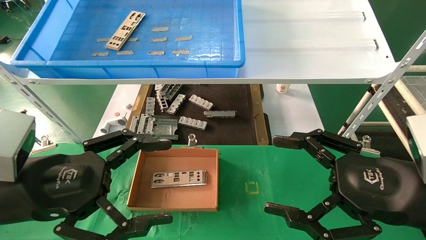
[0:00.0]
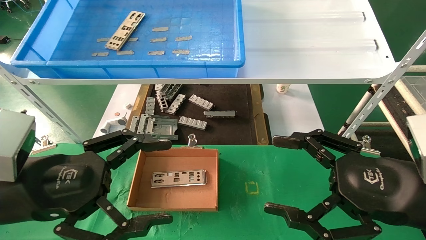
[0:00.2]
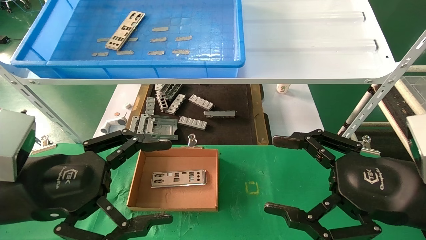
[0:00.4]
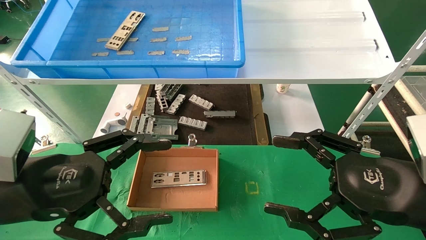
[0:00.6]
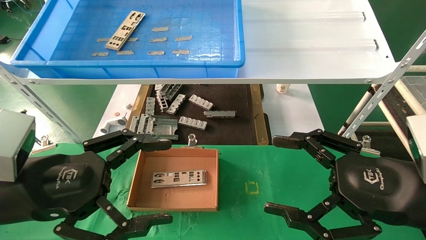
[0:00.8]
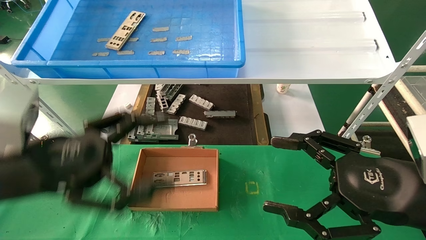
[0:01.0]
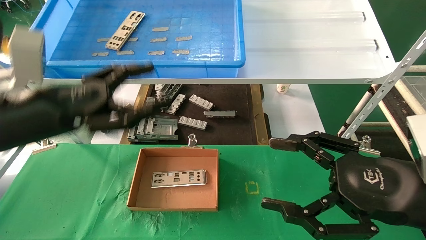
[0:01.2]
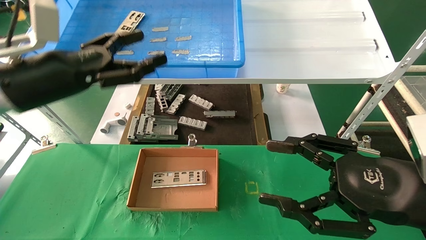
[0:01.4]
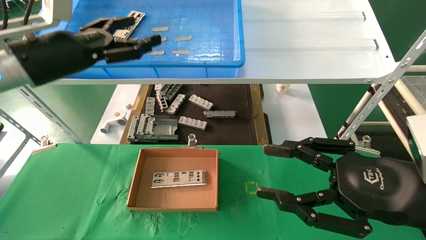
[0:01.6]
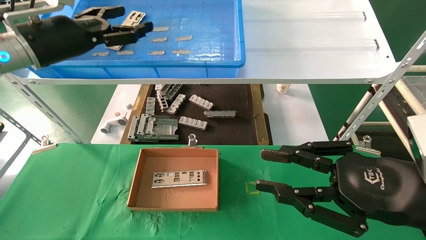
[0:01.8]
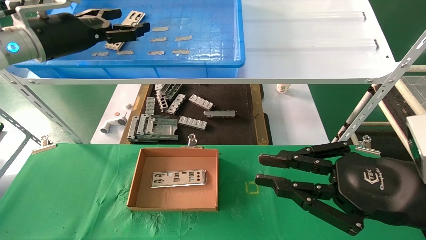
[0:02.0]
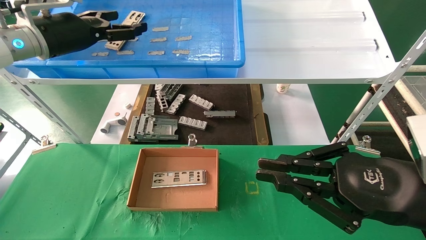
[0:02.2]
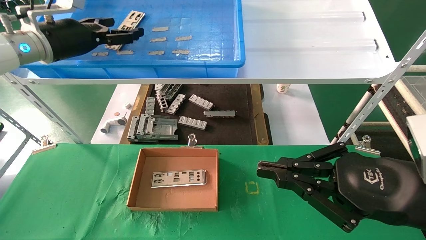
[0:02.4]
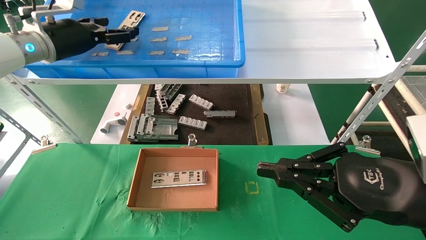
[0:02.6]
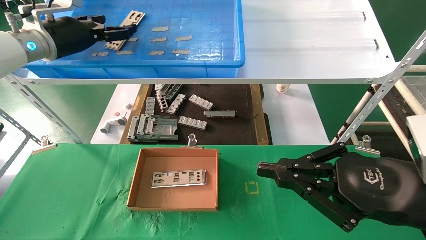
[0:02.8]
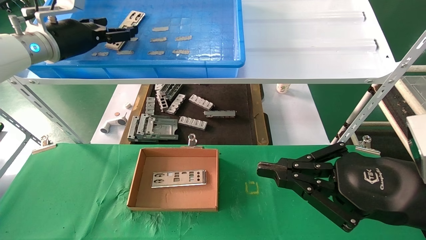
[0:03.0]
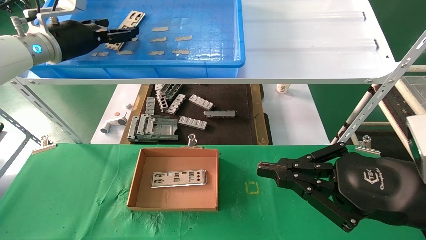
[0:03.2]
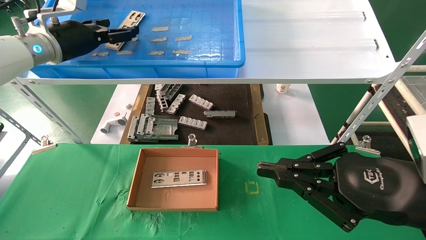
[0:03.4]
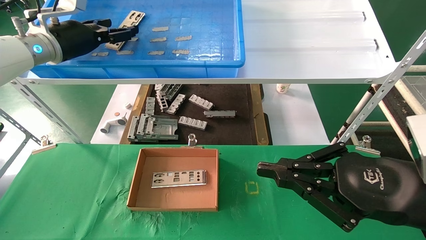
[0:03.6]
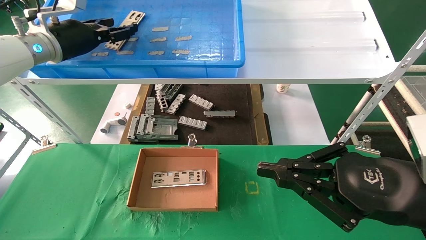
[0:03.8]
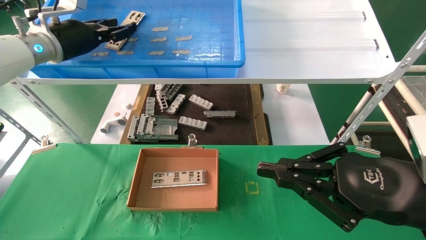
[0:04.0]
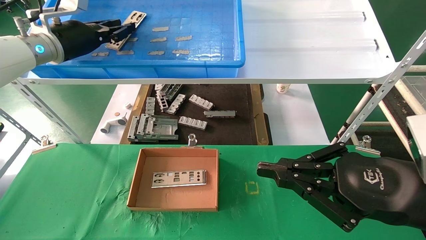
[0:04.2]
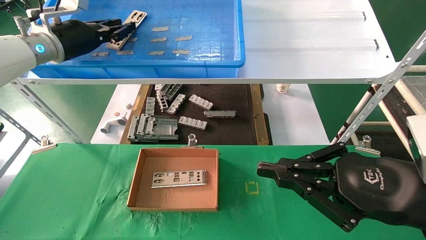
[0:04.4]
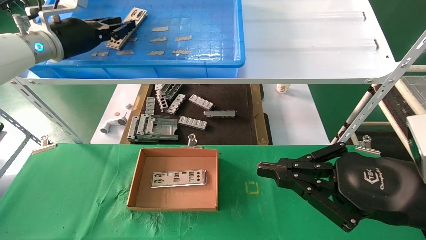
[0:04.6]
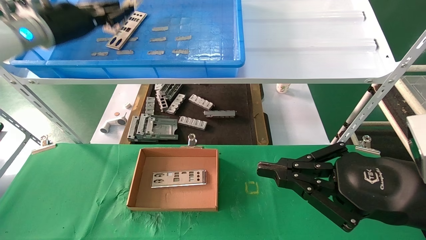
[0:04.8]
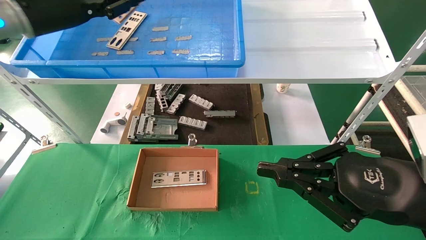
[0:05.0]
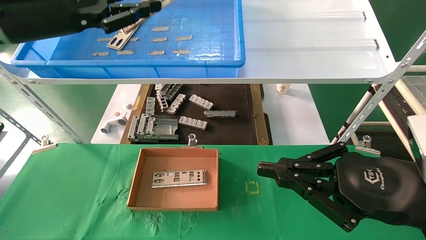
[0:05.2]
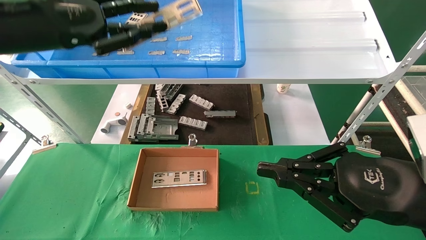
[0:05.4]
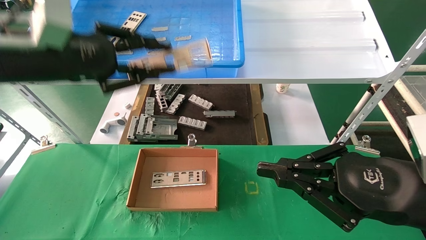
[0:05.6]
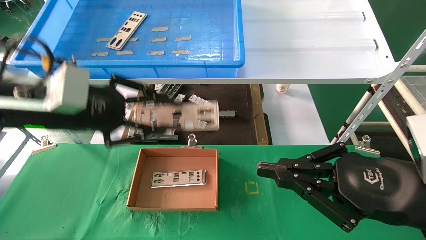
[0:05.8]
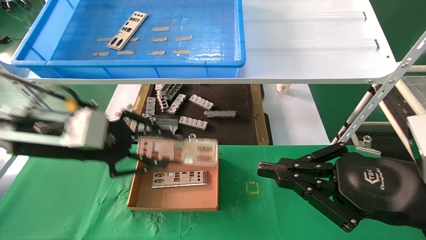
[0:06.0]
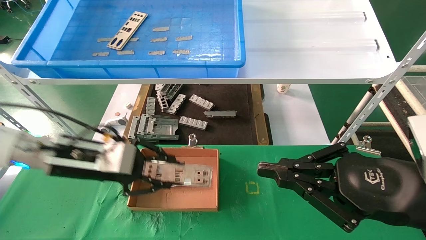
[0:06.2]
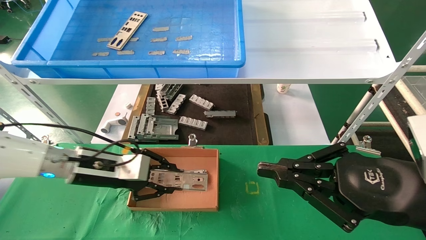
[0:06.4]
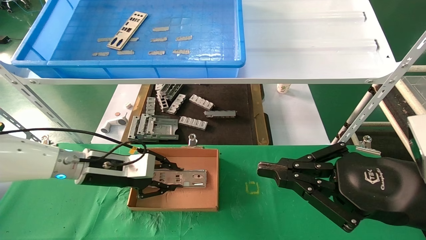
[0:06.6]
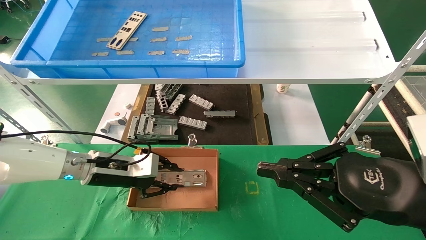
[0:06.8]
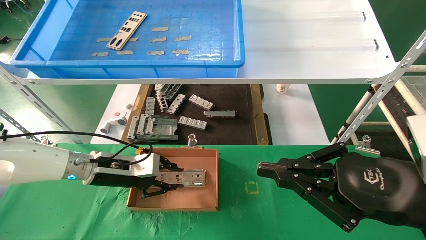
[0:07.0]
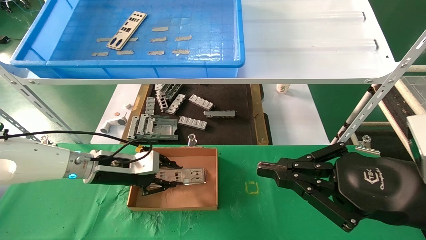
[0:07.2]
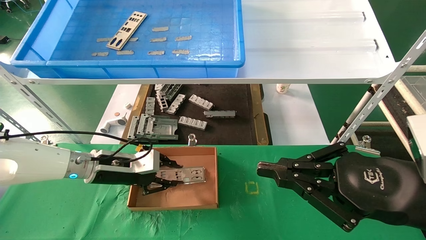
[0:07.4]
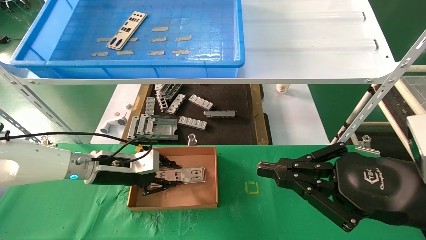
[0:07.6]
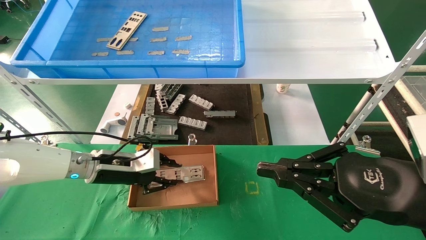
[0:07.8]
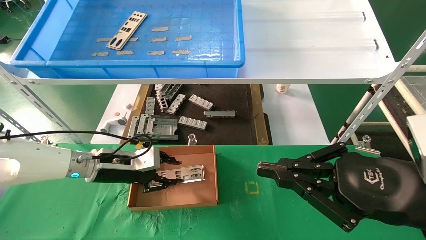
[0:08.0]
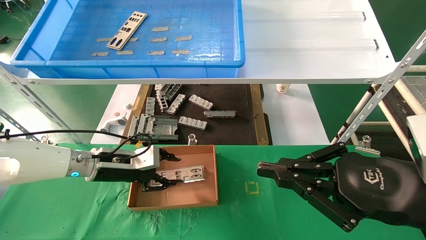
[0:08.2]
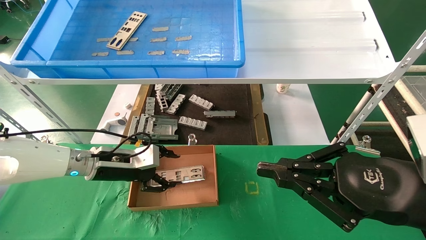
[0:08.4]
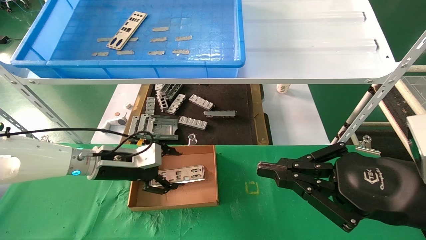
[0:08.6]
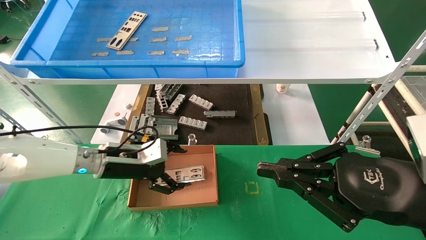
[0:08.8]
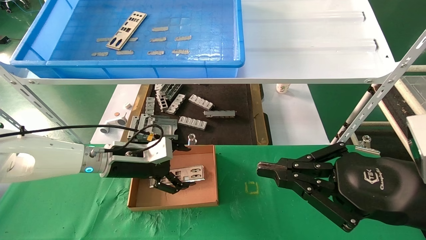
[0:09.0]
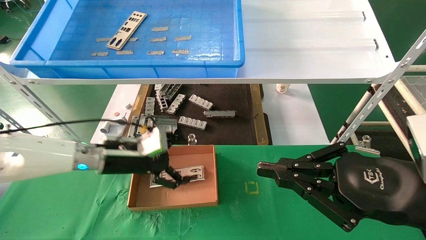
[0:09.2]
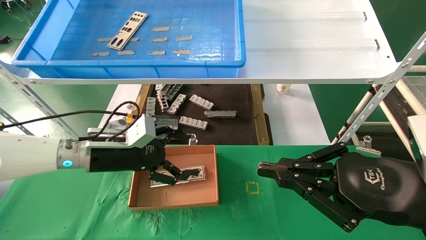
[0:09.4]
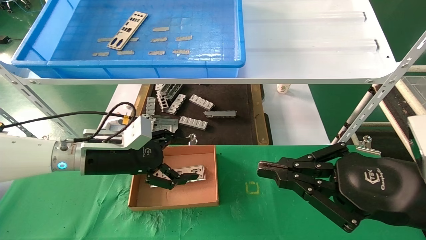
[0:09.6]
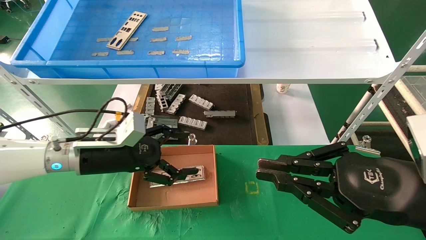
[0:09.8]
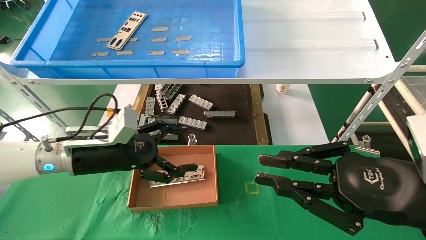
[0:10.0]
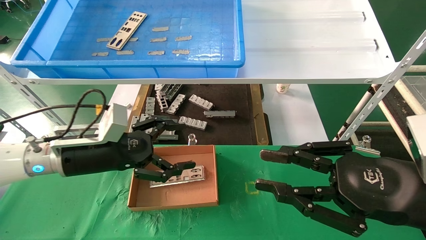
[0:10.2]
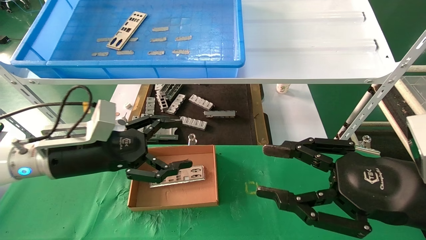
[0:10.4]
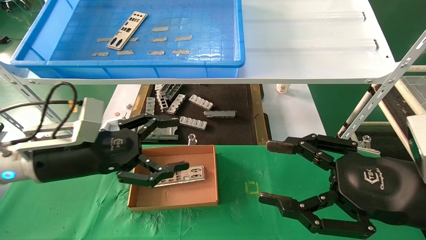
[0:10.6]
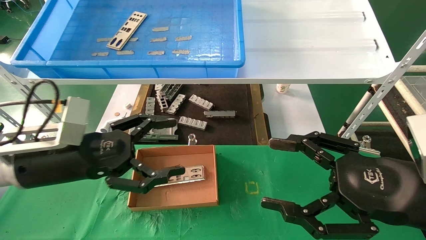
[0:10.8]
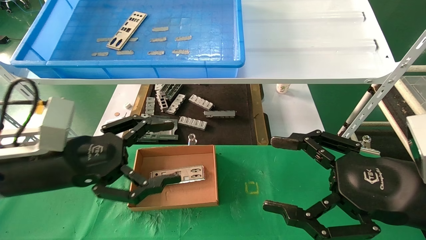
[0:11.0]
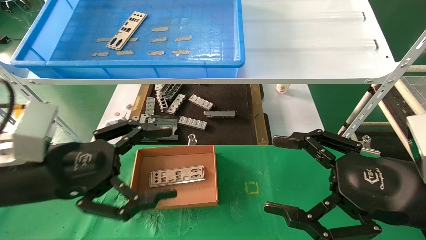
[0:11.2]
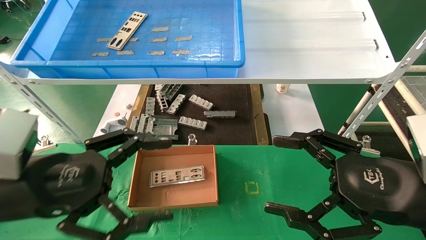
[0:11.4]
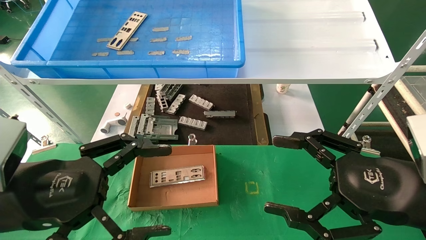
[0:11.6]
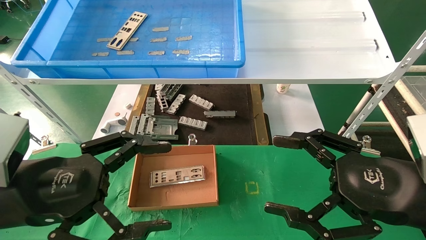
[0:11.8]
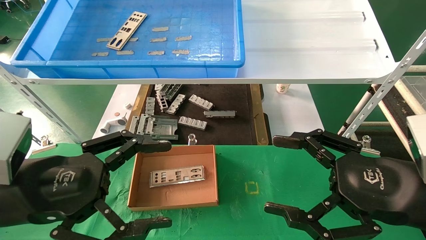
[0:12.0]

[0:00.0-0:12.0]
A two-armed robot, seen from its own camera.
Task of the whole recording: pick up the parts on the tray and put them in the cardboard box.
Step, 0:01.4 to 0:04.6: Pick up the IO bracket from the container box.
Step, 0:04.8 to 0:08.2: Place the IO bracket into the ingredient slot.
0:00.0 to 0:01.6: The left gripper goes approximately 20 cm forward and upward.
0:01.6 to 0:03.0: The right gripper closes up, while the left gripper travels forward by roughly 10 cm.
0:03.0 to 0:04.4: The left gripper closes up.
0:04.4 to 0:06.0: The left gripper moves backward and downward, about 20 cm.
0:06.0 to 0:07.6: The left gripper shifts about 15 cm downward and forward.
0:07.6 to 0:09.0: The left gripper opens.
0:09.0 to 0:10.4: The left gripper shifts about 10 cm backward and upward. Meanwhile the right gripper opens its fingers.
0:10.4 to 0:12.0: The right gripper opens up; the left gripper goes about 15 cm backward.

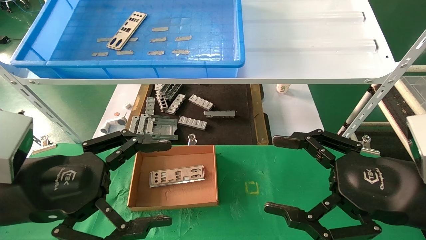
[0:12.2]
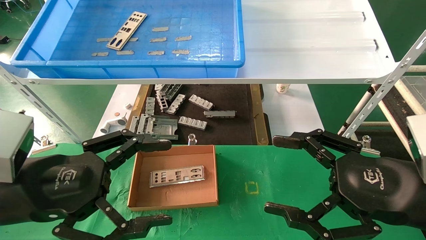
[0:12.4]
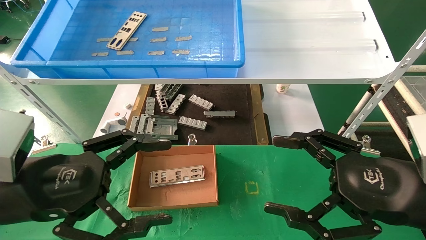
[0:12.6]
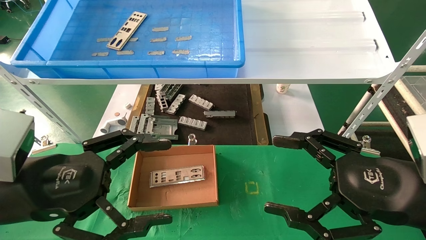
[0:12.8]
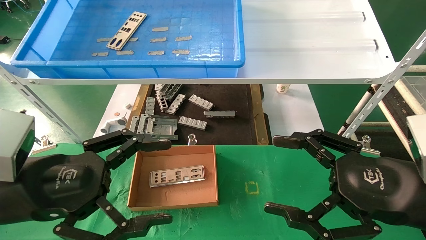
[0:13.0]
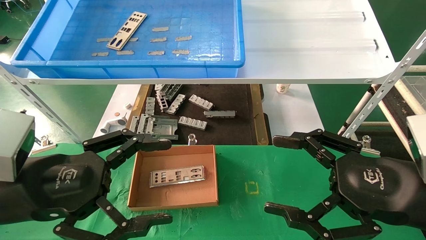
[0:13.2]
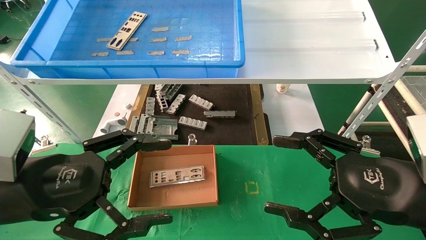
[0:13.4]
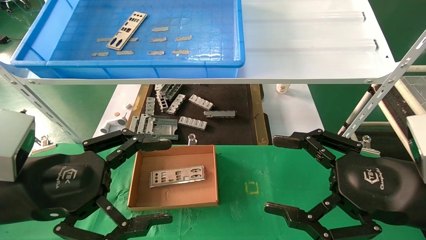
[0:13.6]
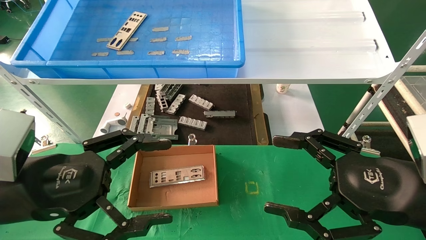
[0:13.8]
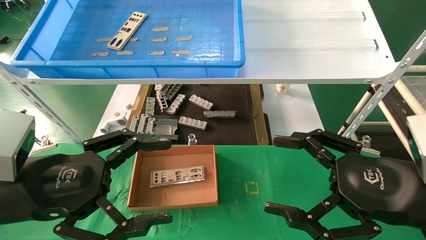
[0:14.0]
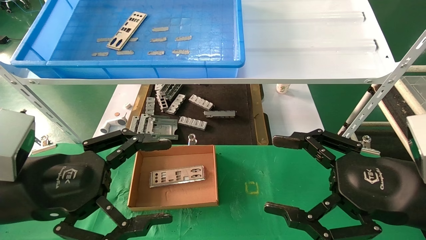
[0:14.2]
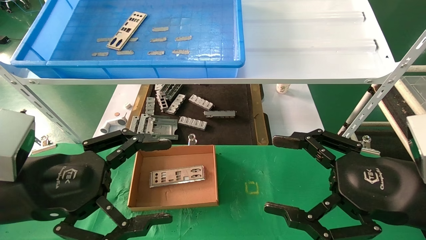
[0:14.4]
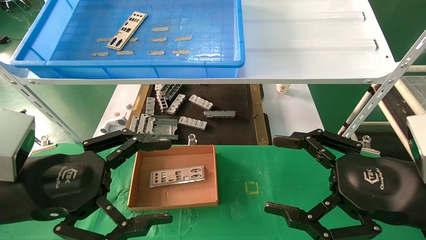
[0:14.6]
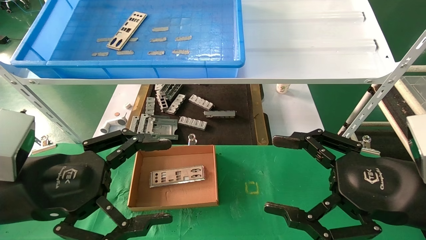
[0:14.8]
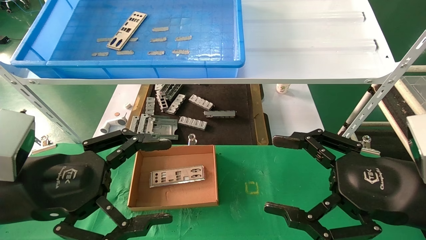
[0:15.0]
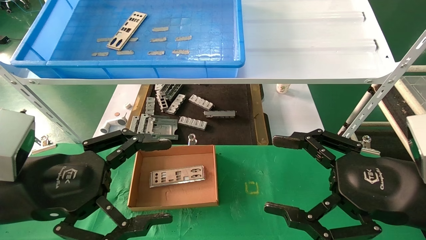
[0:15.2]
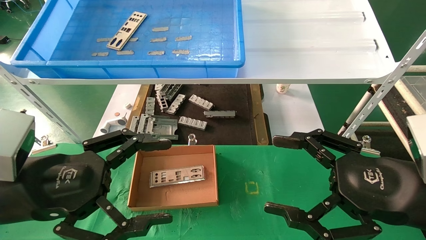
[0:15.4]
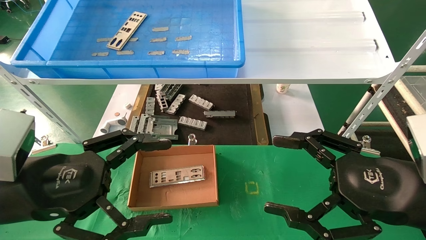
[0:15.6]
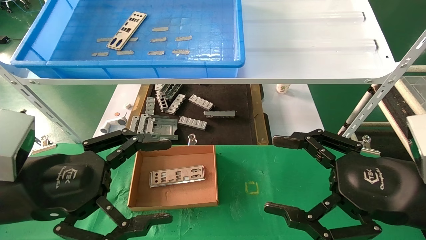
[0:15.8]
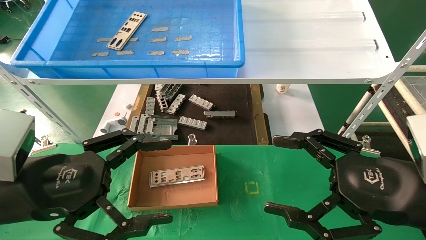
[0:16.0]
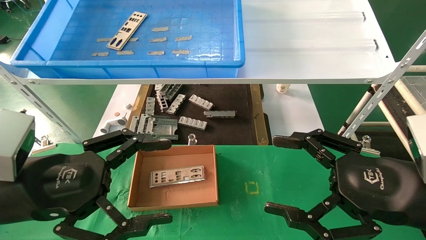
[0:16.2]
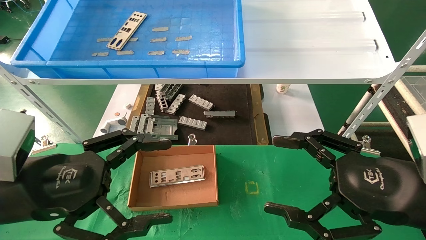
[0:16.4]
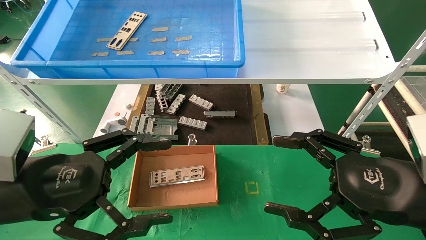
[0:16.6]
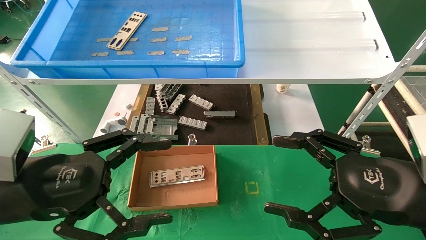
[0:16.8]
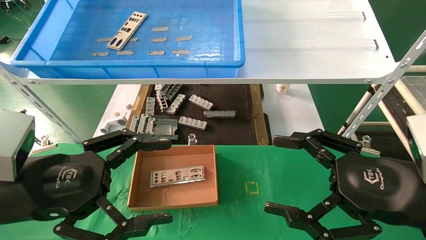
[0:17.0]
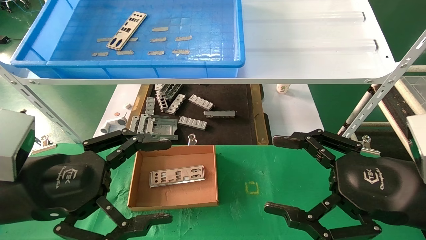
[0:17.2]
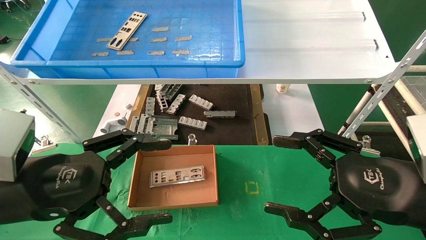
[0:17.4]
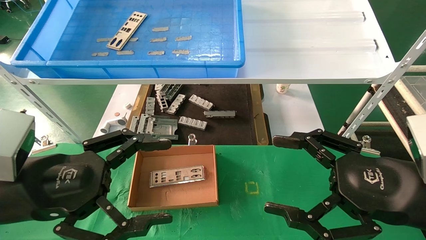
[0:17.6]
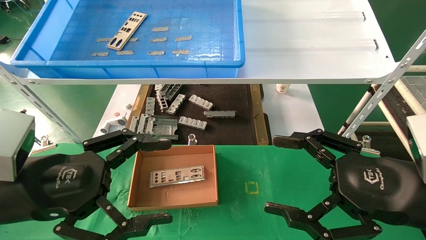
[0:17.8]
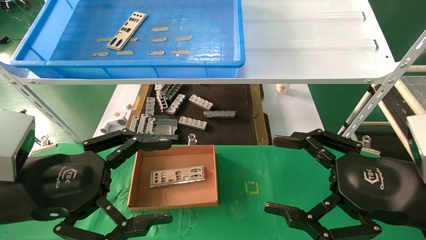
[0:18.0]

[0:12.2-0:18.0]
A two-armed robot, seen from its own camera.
Task of the whole recording: pick up the parts on the tray and put them in the cardboard box.
0:12.2 to 0:18.0: Both grippers stay put.
